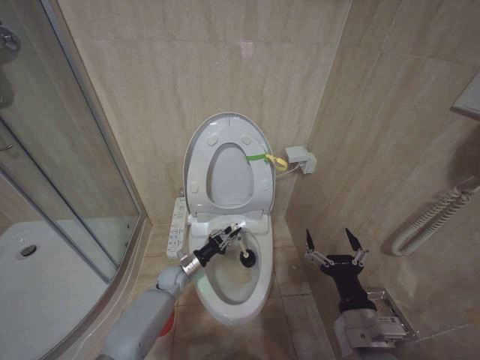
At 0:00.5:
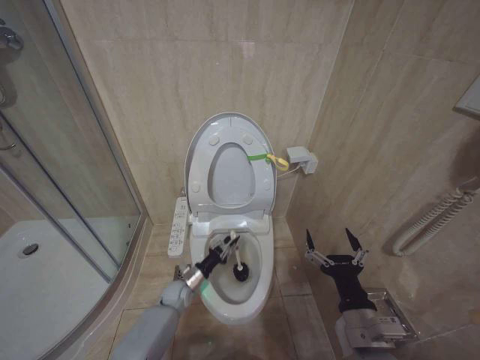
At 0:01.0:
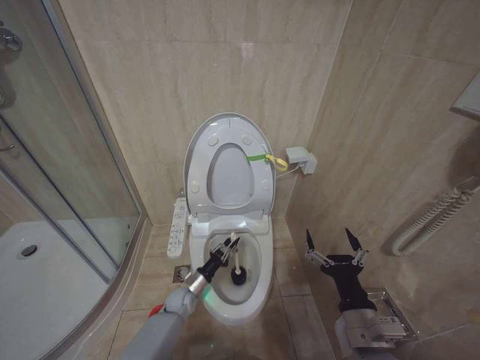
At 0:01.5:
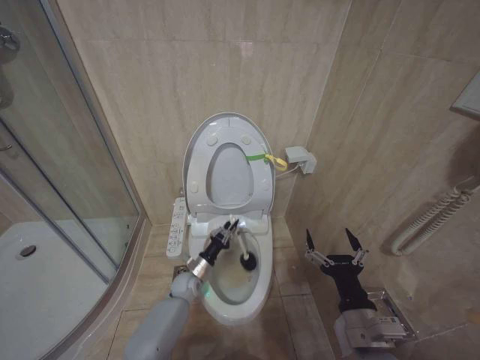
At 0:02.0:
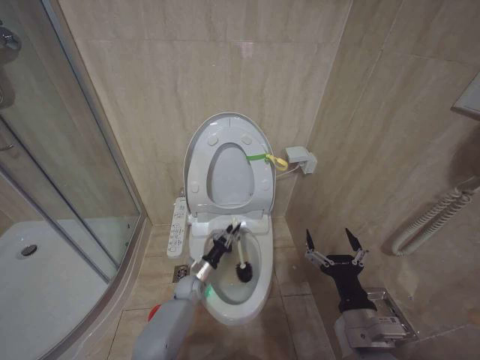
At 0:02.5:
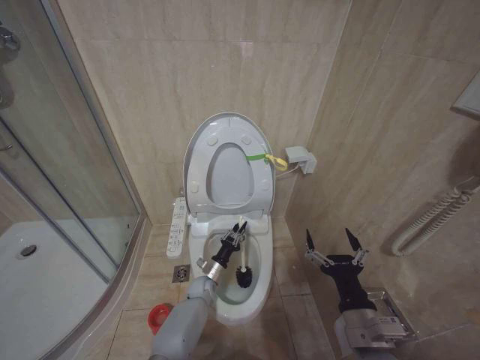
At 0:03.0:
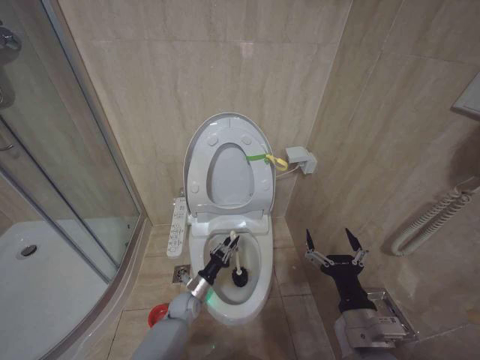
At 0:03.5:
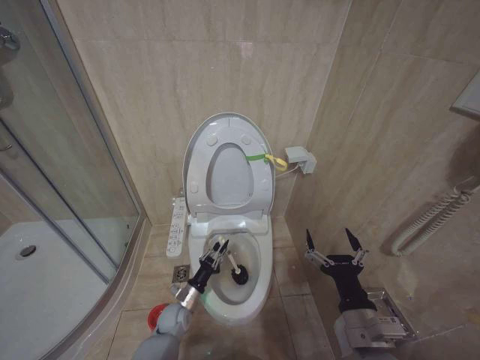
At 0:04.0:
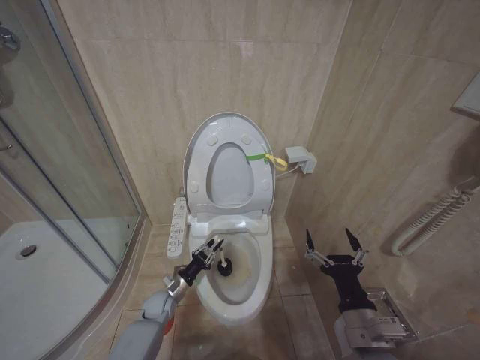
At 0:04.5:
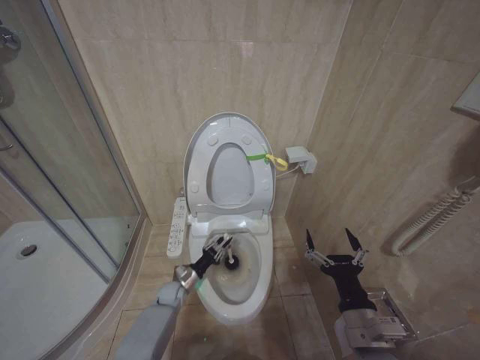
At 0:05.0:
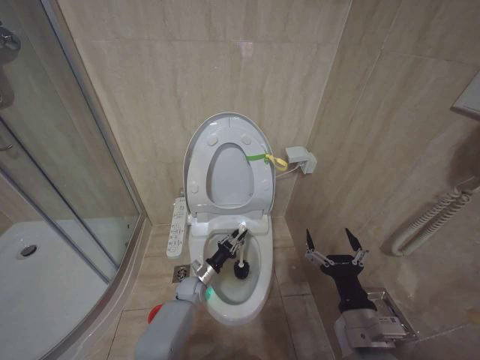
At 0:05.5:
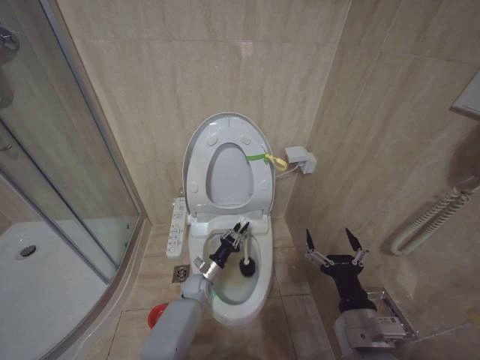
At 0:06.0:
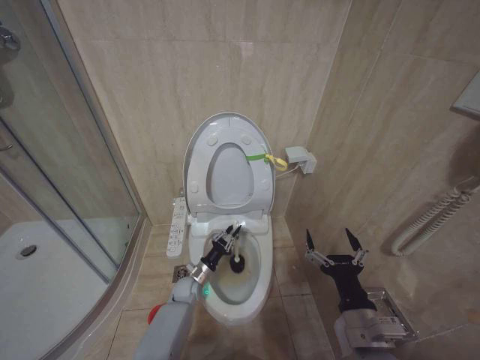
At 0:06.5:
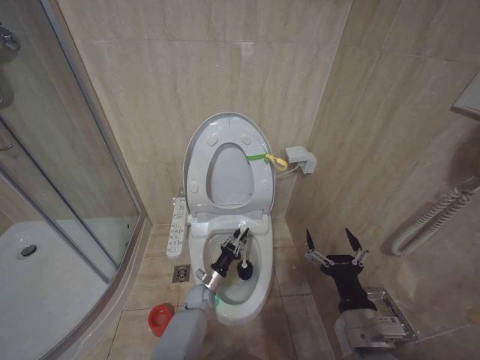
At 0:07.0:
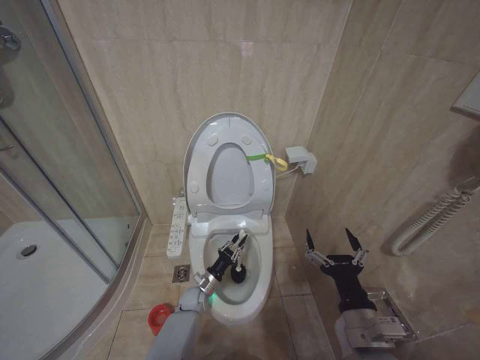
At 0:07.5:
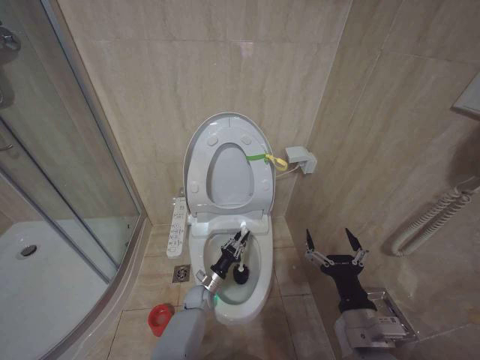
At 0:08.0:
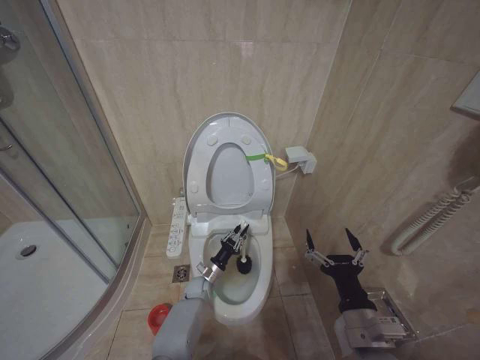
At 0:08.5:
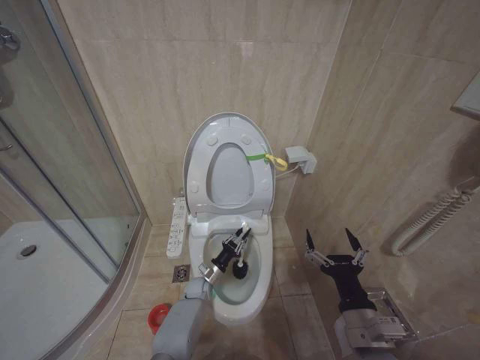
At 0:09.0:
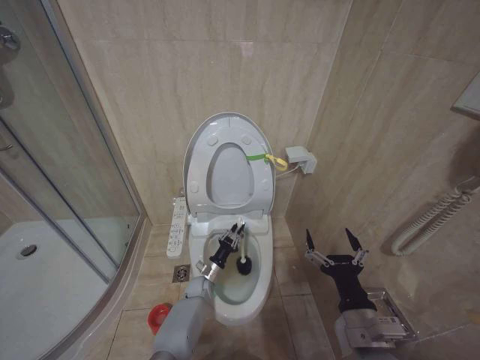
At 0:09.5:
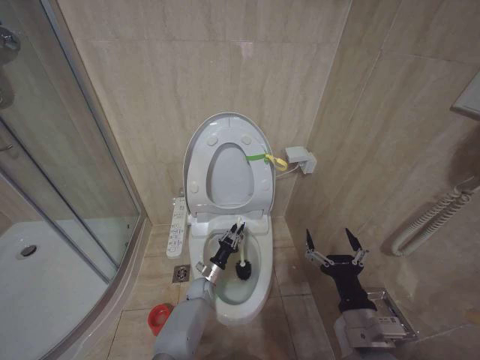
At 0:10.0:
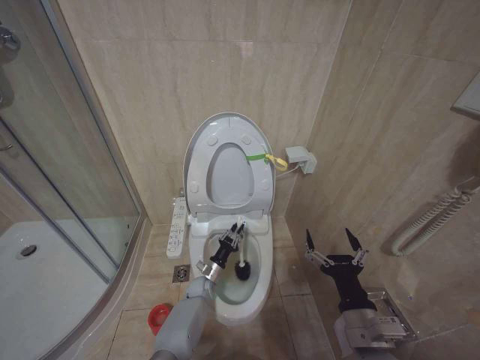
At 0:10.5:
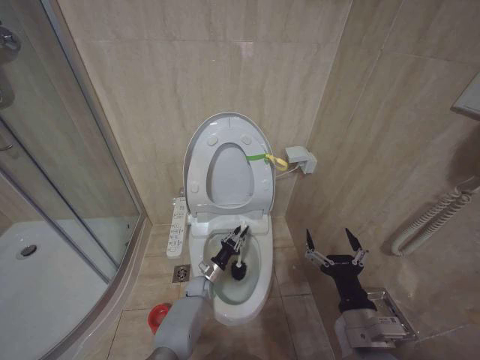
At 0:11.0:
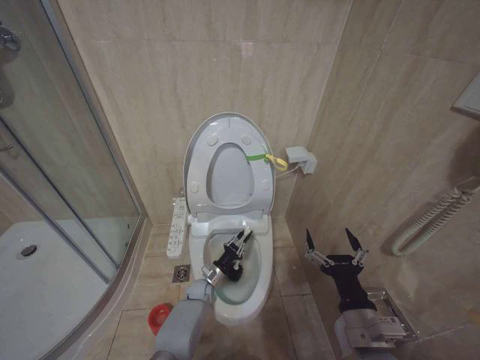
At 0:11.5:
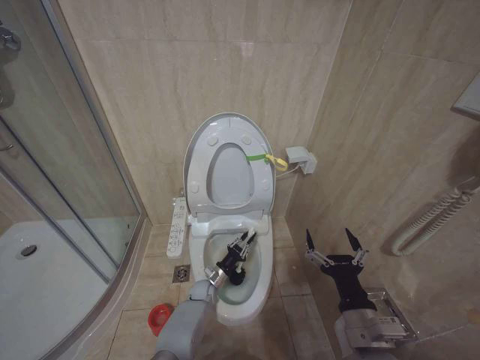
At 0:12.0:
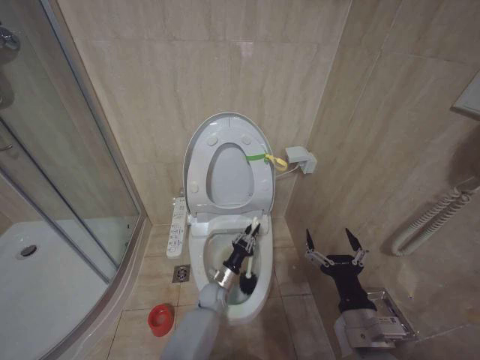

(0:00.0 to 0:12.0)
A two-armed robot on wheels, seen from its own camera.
Task of the whole recording: Open the toilet lid, clean the toilet bowl with a toilet brush, close the toilet lid, and flush.
0:00.0 - 0:02.0: The left gripper moves to the right, some 5 cm.
0:02.0 - 0:04.0: The left gripper shifts approximately 10 cm to the left.
0:04.0 - 0:06.0: The left gripper goes some 10 cm to the right.
0:06.0 - 0:08.0: The grippers move only a little.
0:10.0 - 0:12.0: The left gripper shifts by approximately 5 cm.

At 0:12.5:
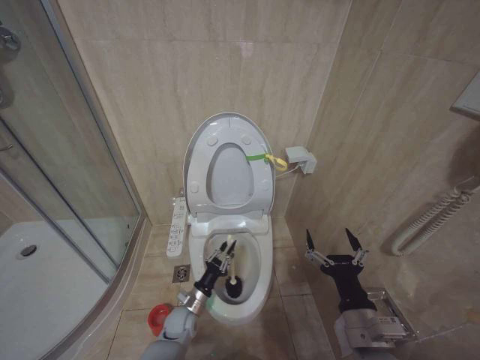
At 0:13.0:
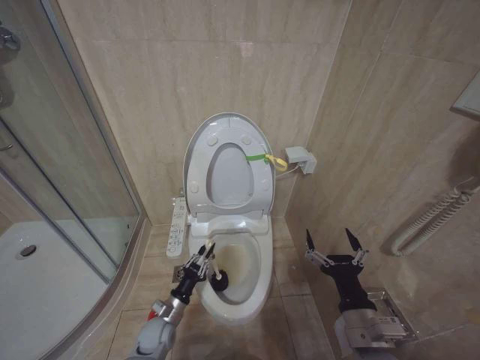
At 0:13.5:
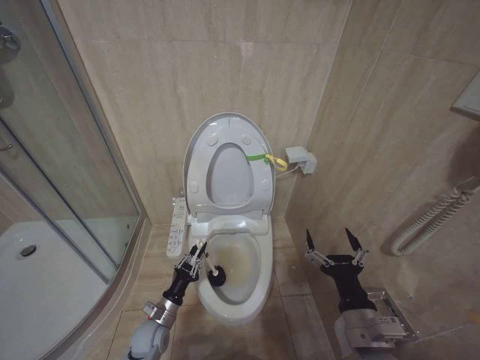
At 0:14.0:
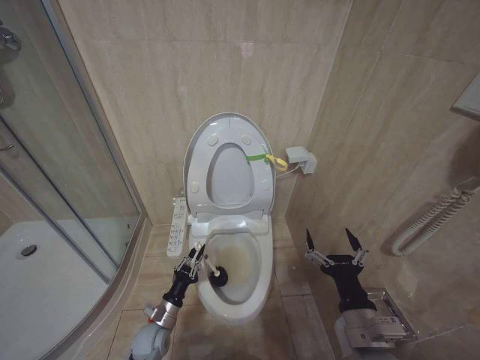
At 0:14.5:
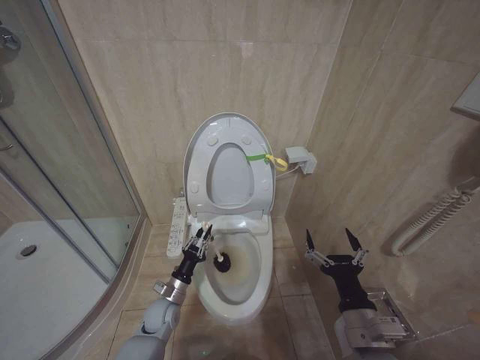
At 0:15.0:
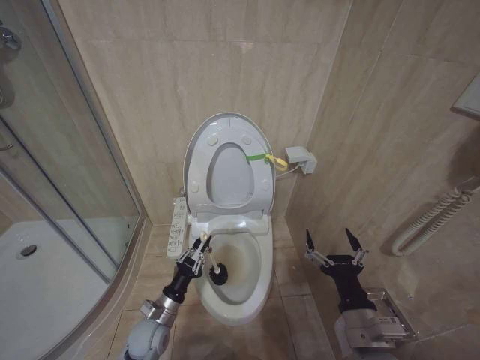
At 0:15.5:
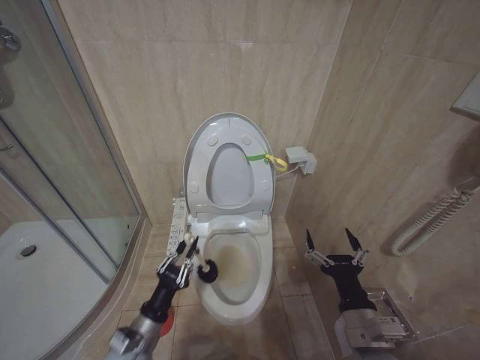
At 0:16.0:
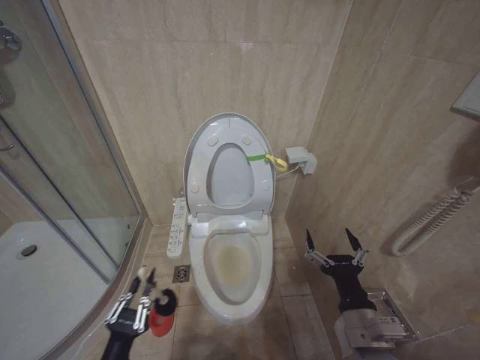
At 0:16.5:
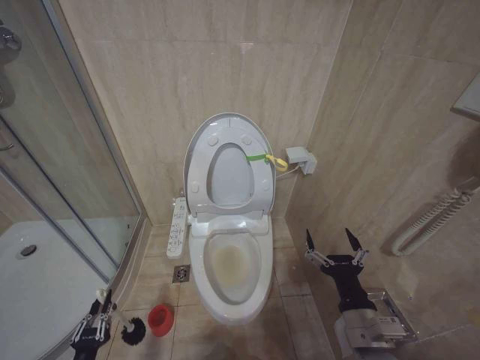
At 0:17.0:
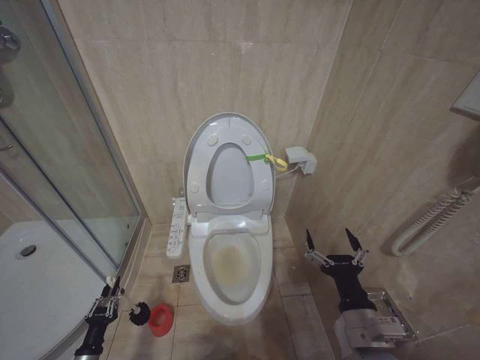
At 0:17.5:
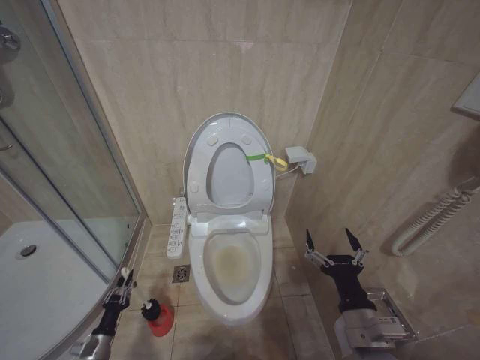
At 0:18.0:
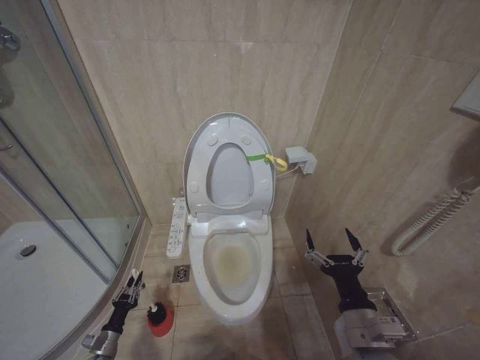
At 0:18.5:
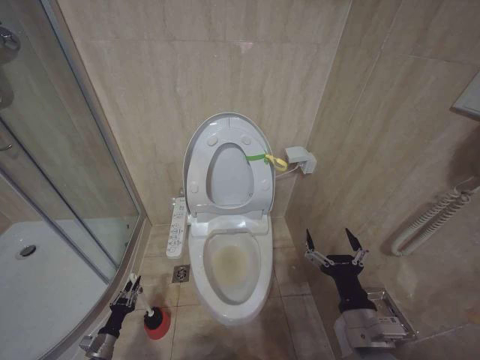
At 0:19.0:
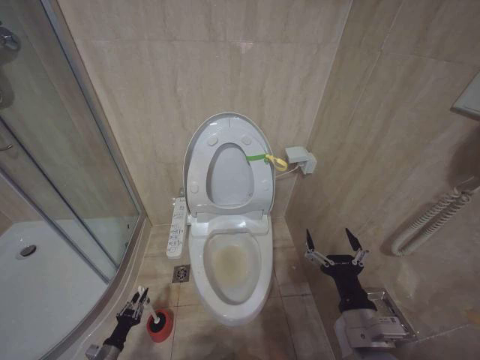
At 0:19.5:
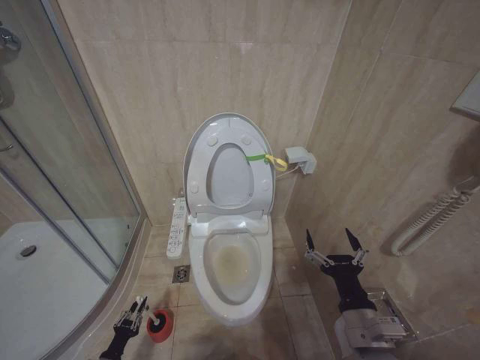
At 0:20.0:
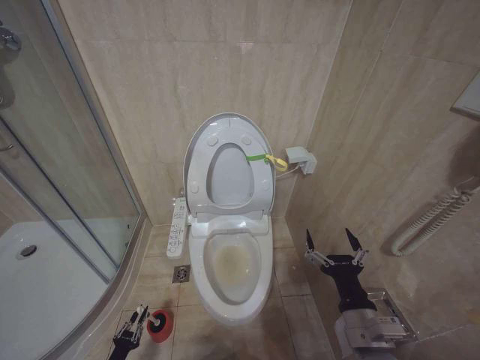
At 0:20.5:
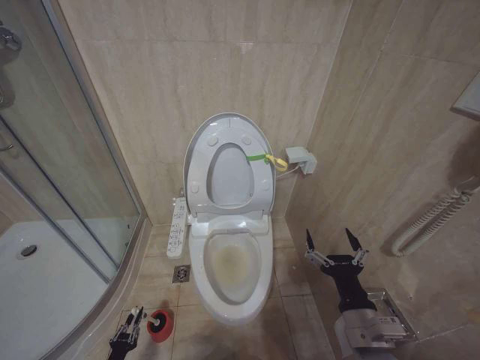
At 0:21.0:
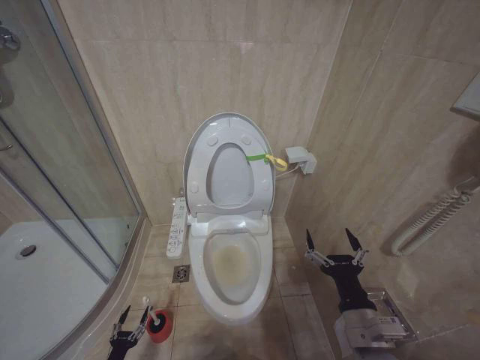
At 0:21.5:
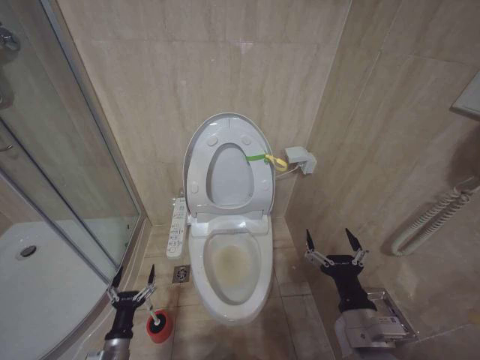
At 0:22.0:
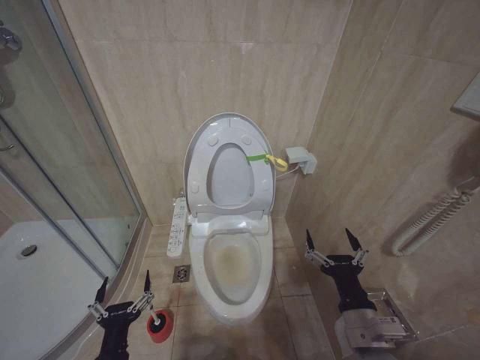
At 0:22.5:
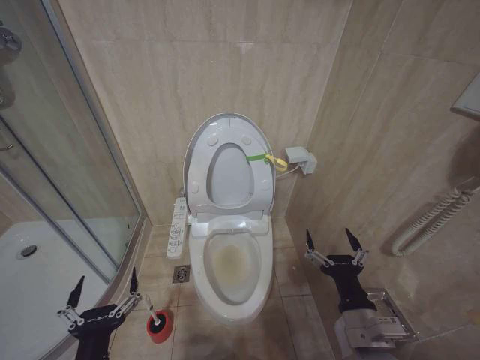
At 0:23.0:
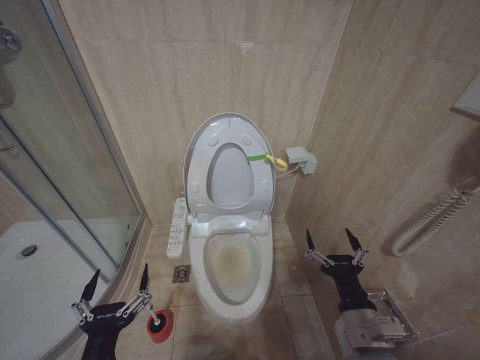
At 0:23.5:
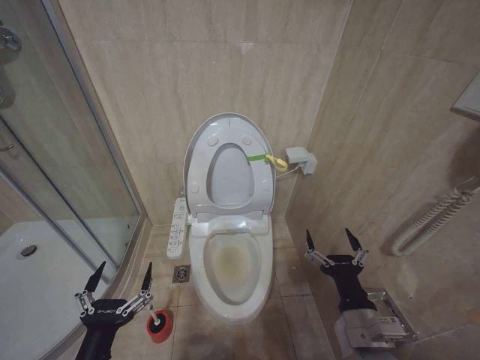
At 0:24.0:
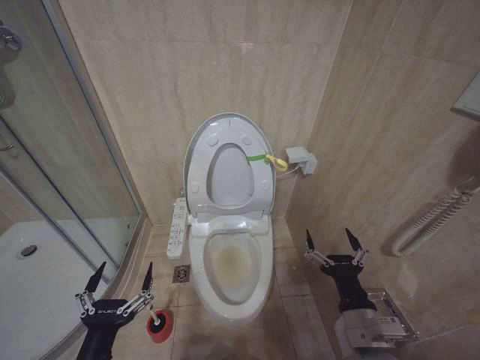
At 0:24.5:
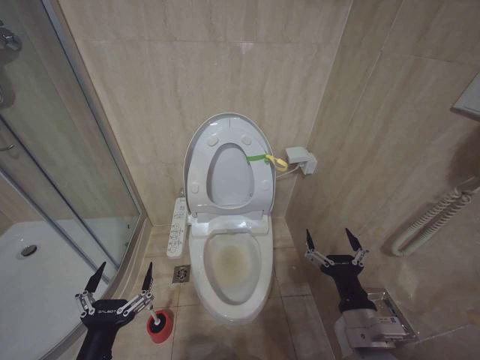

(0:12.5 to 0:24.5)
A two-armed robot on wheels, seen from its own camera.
Task of the whole recording: Open the toilet lid, clean the toilet bowl with a toilet brush, close the toilet lid, and flush.
0:12.5 - 0:14.5: The left gripper goes roughly 5 cm to the left.
0:14.5 - 0:16.5: The left gripper is displaced backward and to the left by approximately 30 cm.
0:16.5 - 0:18.5: The left gripper heads forward, downward and to the left, covering about 20 cm.
0:18.5 - 0:20.5: The left gripper is displaced backward by about 10 cm.
0:20.5 - 0:22.5: The left gripper heads upward and to the right, covering some 40 cm, and opens its fingers.
0:22.5 - 0:24.5: The grippers make only small movements.

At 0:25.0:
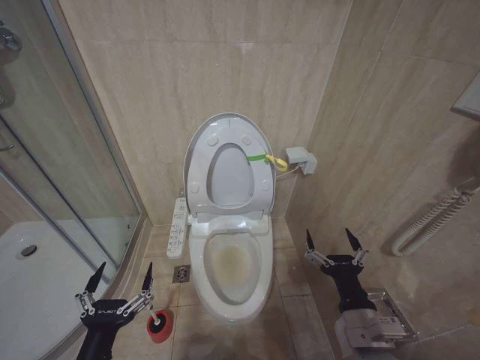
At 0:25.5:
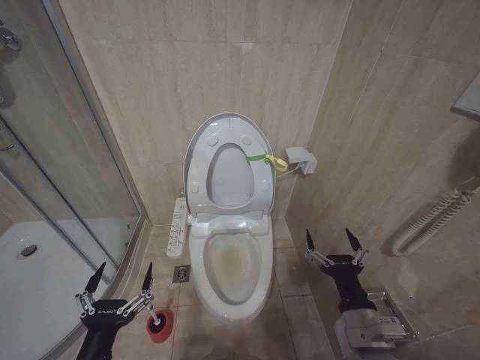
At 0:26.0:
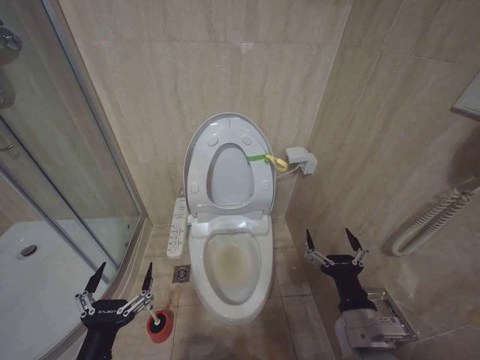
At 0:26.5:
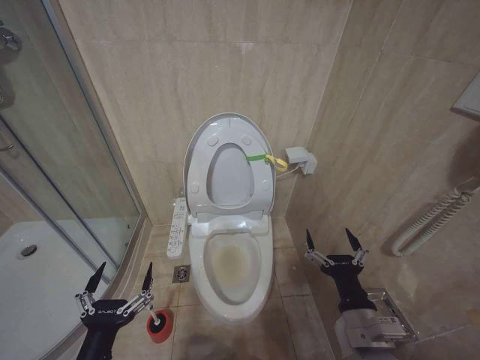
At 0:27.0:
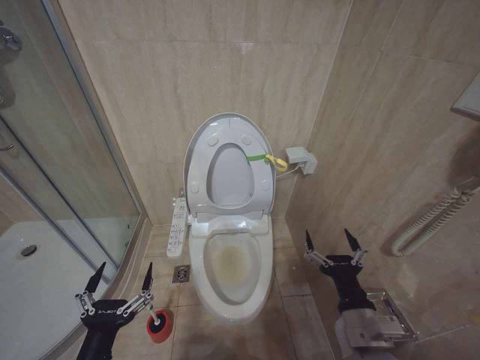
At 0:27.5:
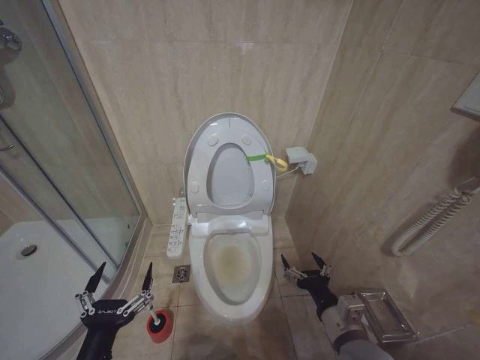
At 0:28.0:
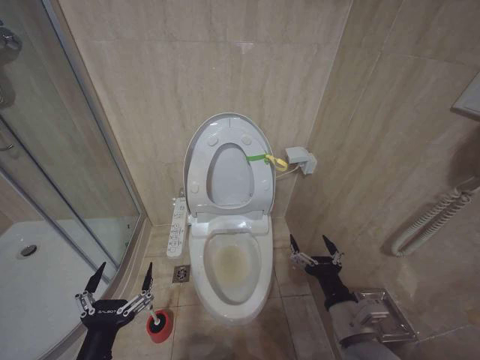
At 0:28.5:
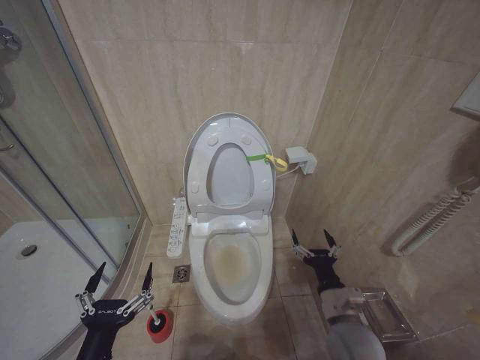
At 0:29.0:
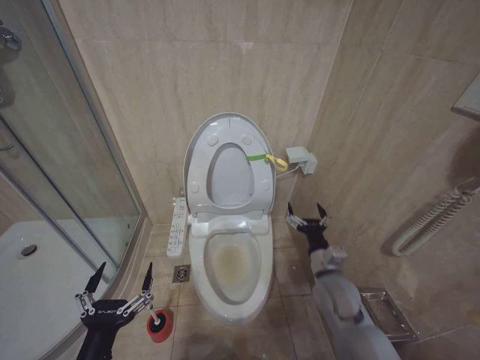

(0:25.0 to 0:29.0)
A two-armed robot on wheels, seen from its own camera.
Task of the whole recording: Open the toilet lid, clean the toilet bowl with a toilet brush, close the toilet lid, and flush.
0:25.0 - 0:27.0: Both grippers stay about where they are.
0:27.0 - 0:29.0: The right gripper heads forward, covering about 15 cm.
